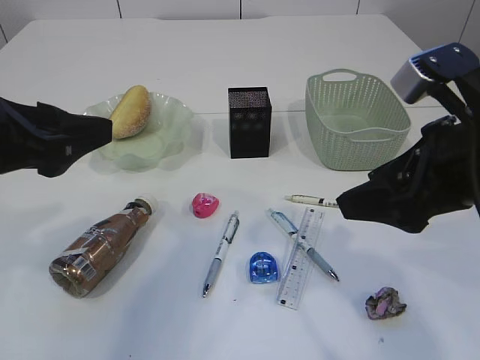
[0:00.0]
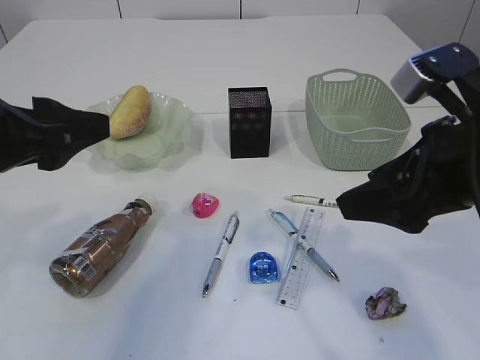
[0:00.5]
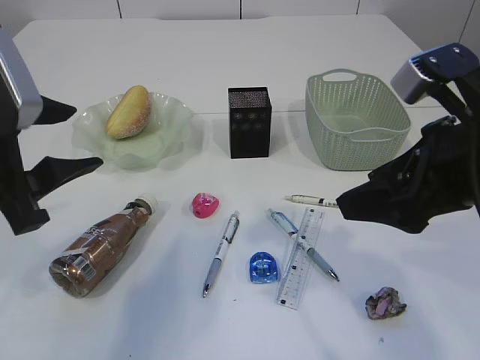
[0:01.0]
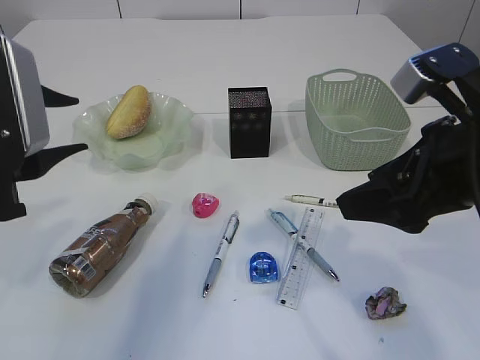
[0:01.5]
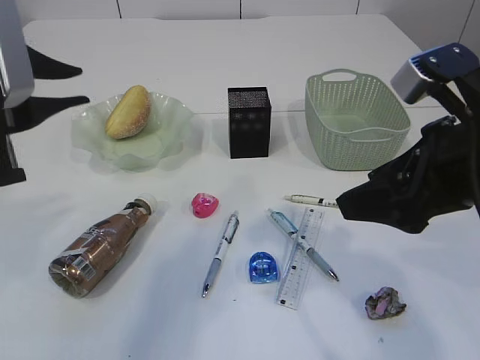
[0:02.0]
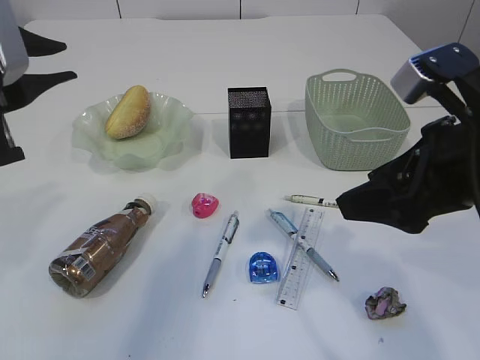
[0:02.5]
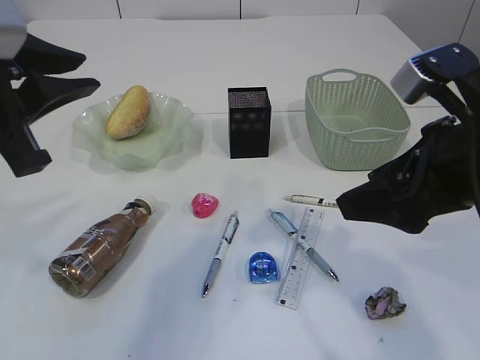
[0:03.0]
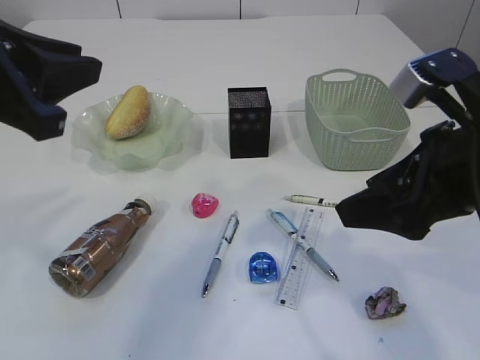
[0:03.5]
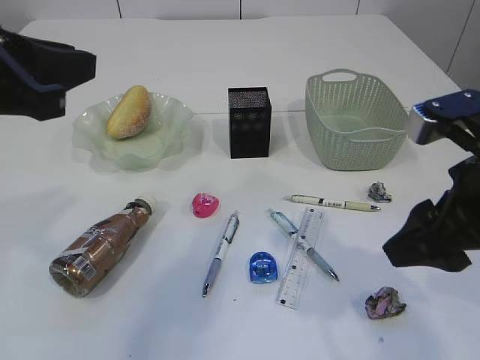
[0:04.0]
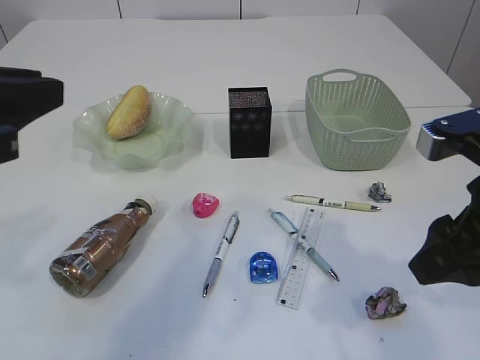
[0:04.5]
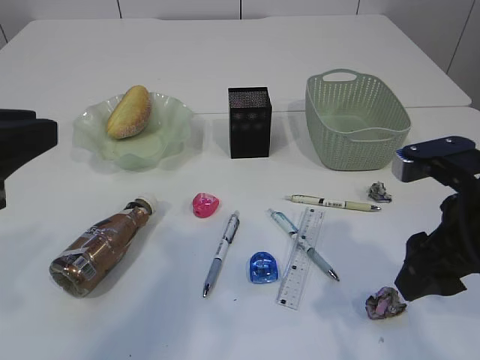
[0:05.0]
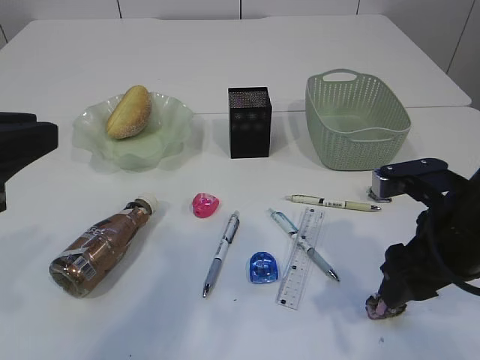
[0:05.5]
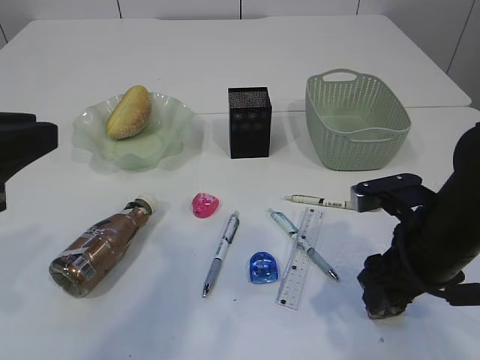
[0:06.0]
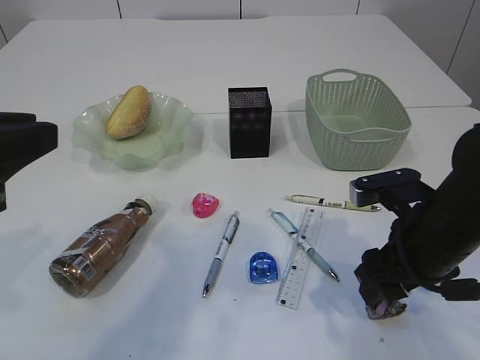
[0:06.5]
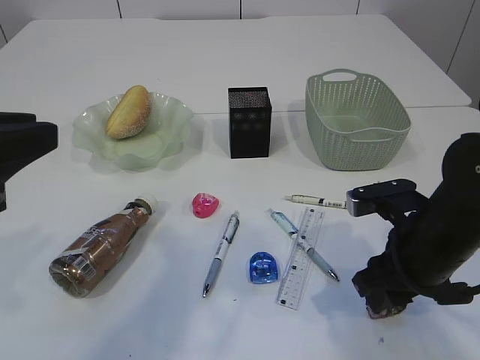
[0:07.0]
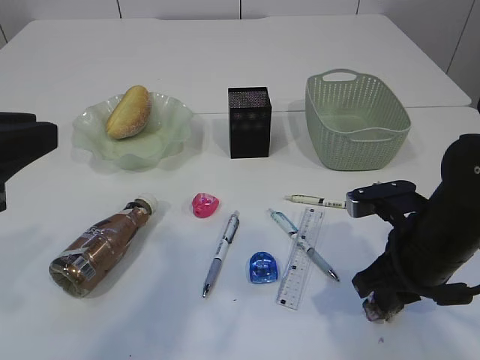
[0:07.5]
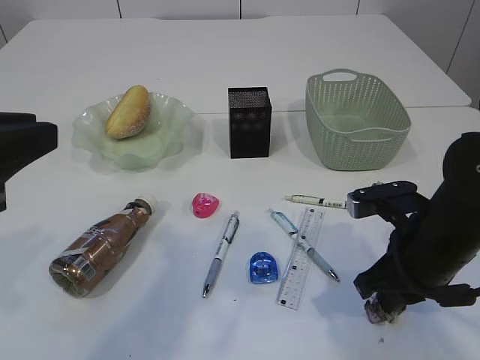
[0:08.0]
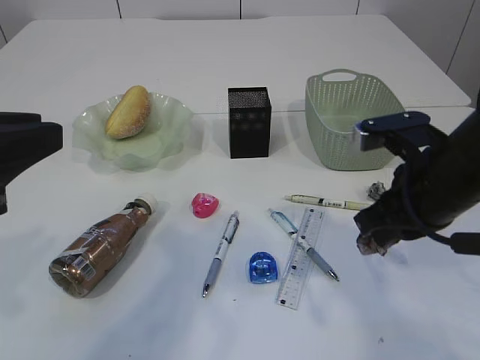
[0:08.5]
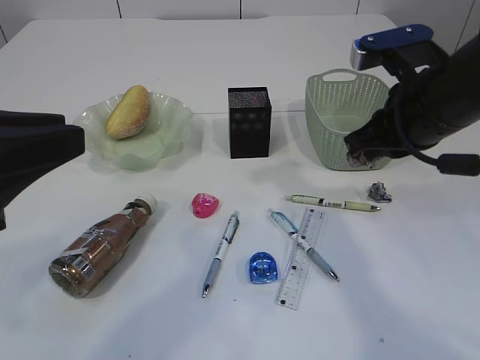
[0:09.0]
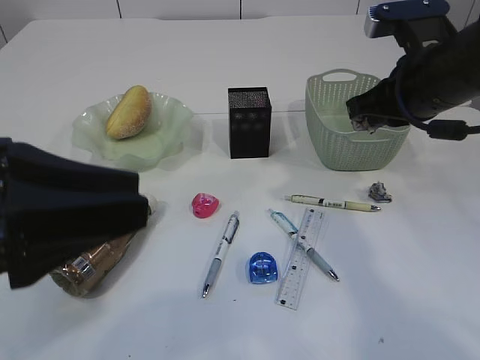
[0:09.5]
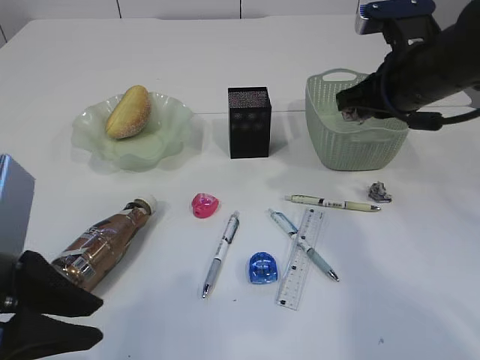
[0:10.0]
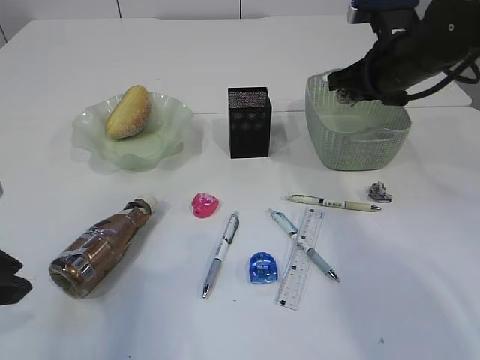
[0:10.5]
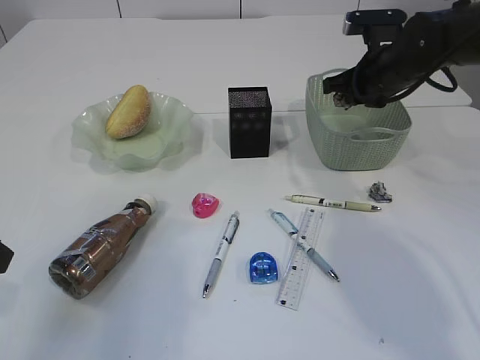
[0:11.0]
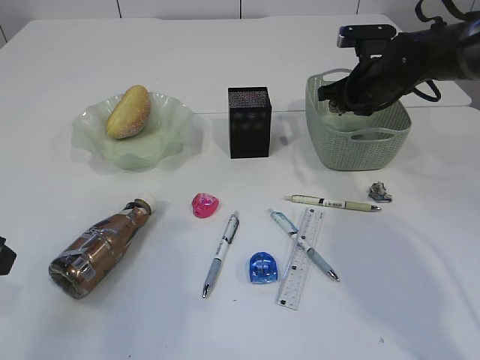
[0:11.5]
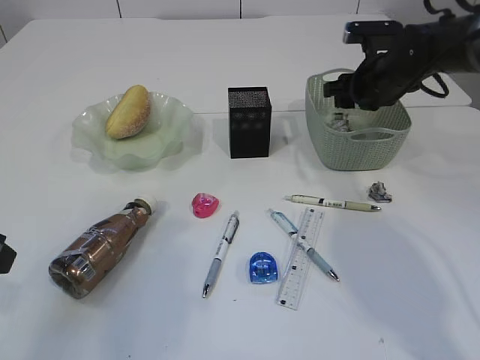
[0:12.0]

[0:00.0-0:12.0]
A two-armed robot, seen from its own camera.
Step, 0:00.0 to 0:08.5: Pick up the waste paper.
0:00.0 to 0:02.0: The left gripper closes.
0:04.0 to 0:06.0: The left gripper goes some 5 cm backward, while the right gripper travels downward by approximately 10 cm.
0:06.0 to 0:08.0: The right gripper closes its fingers.
0:08.0 to 0:10.0: The left gripper is displaced downward by roughly 5 cm, while the right gripper shifts approximately 15 cm upward and forward.
0:10.0 to 0:12.0: The left gripper is displaced to the left and forward by about 10 cm; the right gripper heads forward and downward, covering some 15 cm, and opens up.

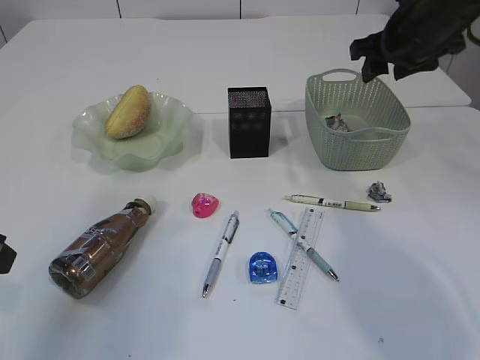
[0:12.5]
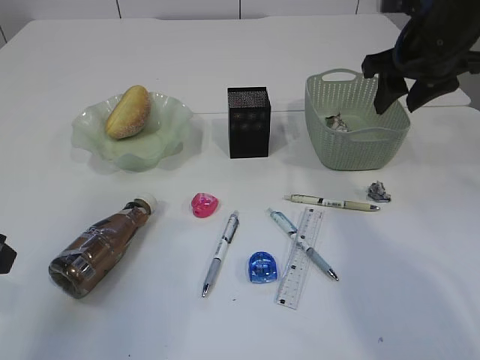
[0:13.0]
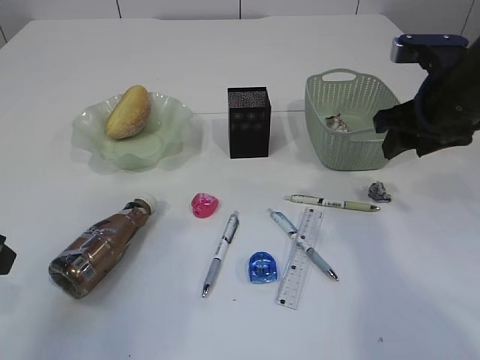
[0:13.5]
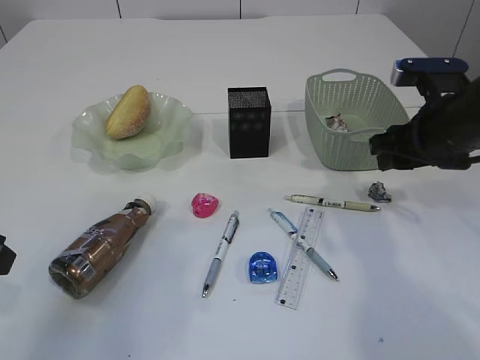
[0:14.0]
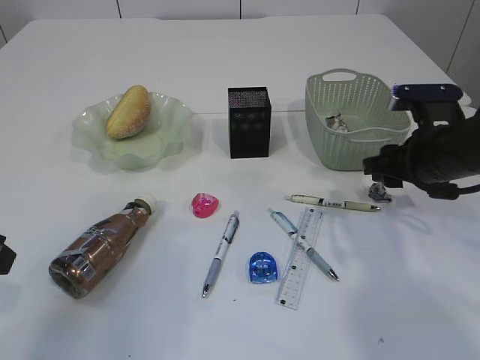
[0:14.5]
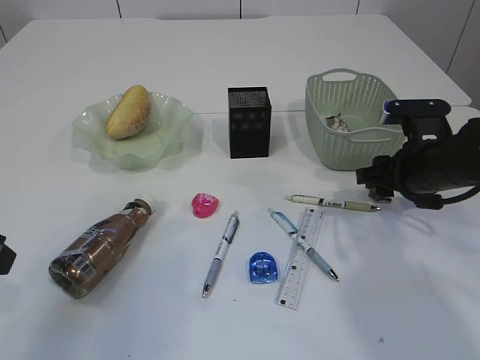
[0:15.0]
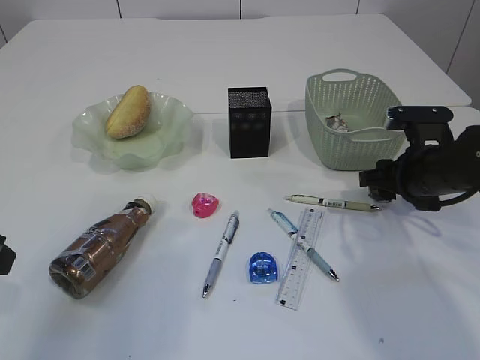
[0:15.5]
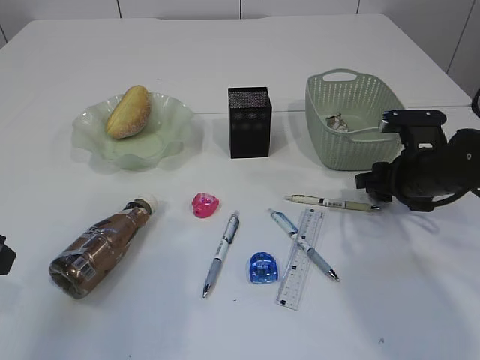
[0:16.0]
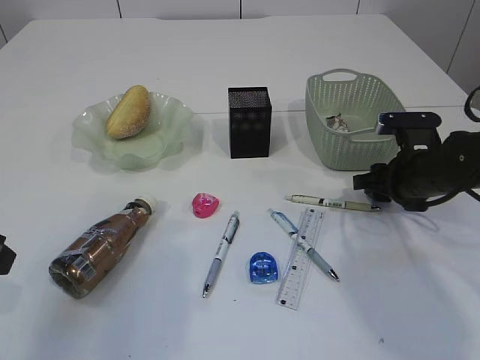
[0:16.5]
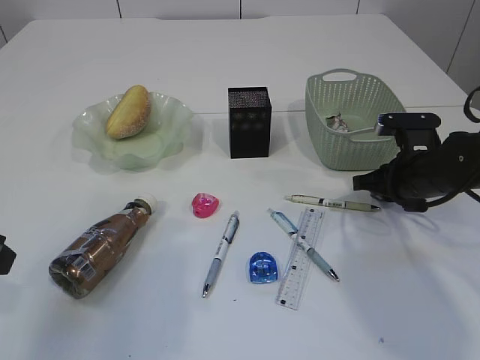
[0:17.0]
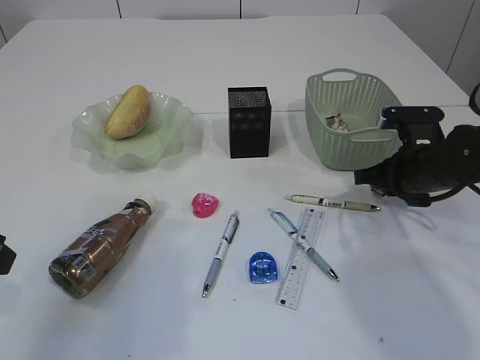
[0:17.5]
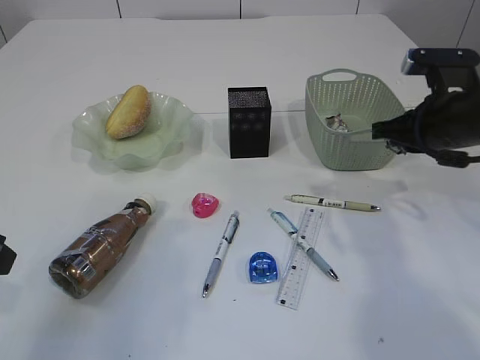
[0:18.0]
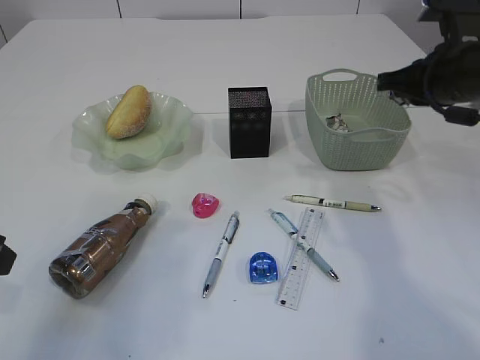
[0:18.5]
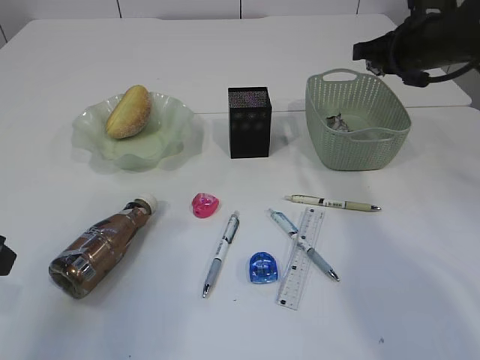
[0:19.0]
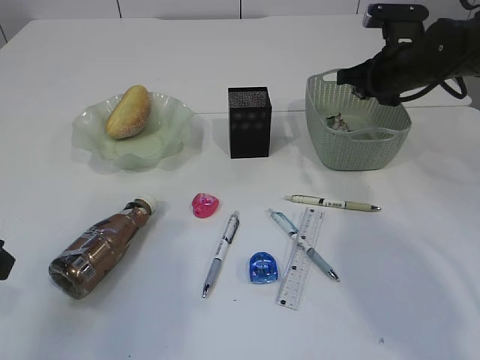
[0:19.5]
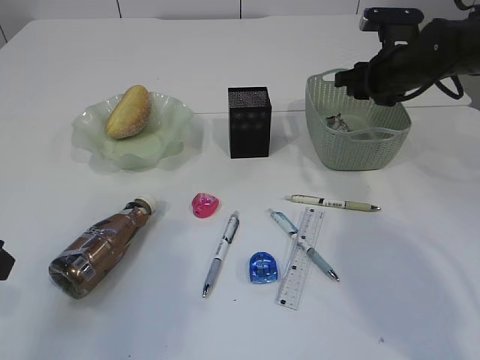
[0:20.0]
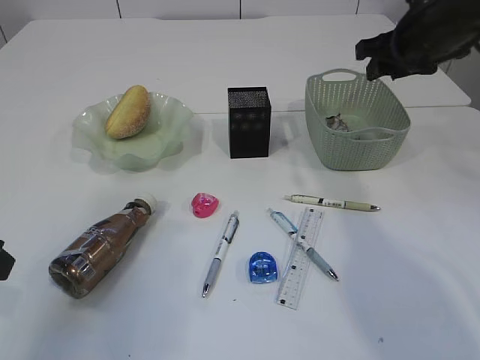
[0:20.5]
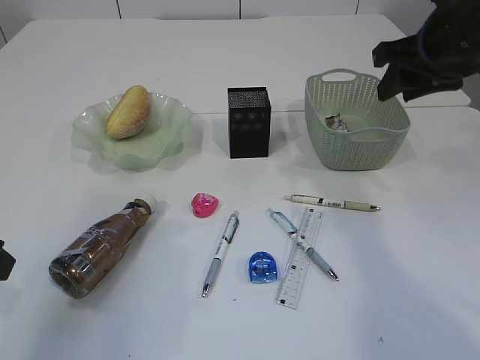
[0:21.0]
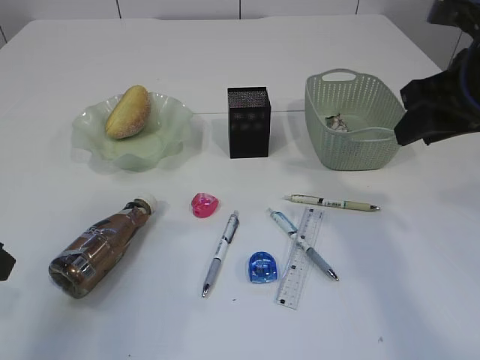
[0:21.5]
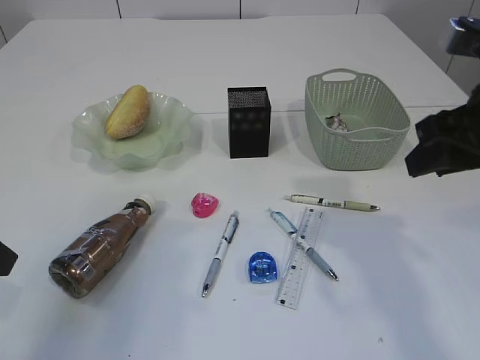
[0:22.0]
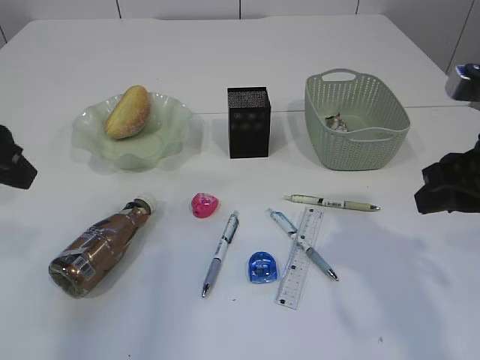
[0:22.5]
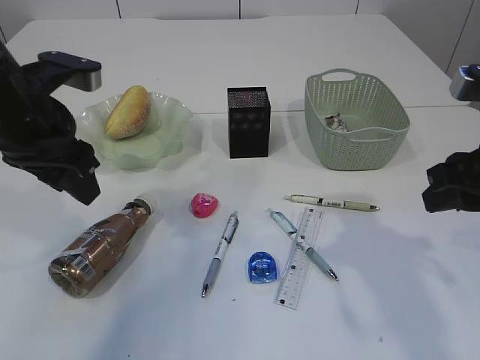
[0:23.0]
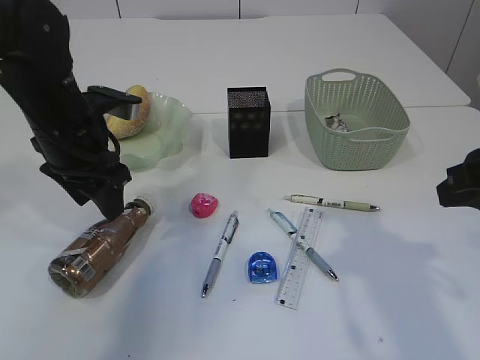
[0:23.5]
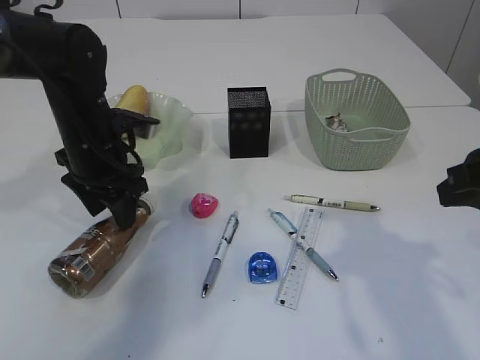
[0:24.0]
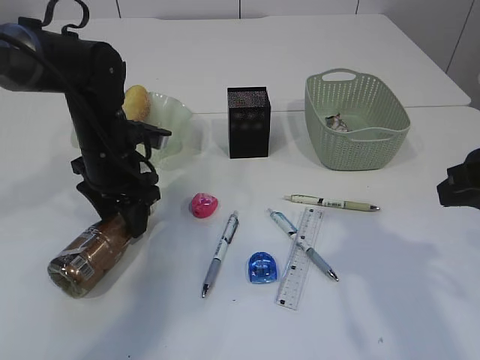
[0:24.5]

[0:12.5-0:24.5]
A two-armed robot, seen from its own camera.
Step, 0:12.5 to 0:18.0: Pick up the waste paper.
Step, 0:18.5 to 0:20.5: Place the waste paper in the basket.
0:12.5 to 0:14.5: The right gripper travels downward and backward by roughly 15 cm.
0:14.5 to 0:16.5: The right gripper moves downward, approximately 5 cm.
0:16.5 to 0:18.5: The right gripper shifts roughly 15 cm upward, and closes.
0:18.5 to 0:20.5: The right gripper travels forward by approximately 5 cm, and opens up.
0:20.5 to 0:22.5: The left gripper is displaced forward and upward by some 10 cm, while the right gripper travels backward by about 20 cm.
0:22.5 to 0:24.5: The left gripper goes some 20 cm downward, forward and to the right, and opens.

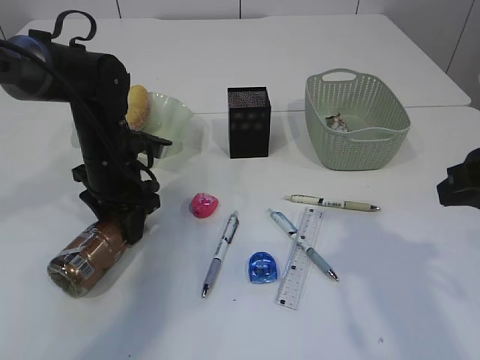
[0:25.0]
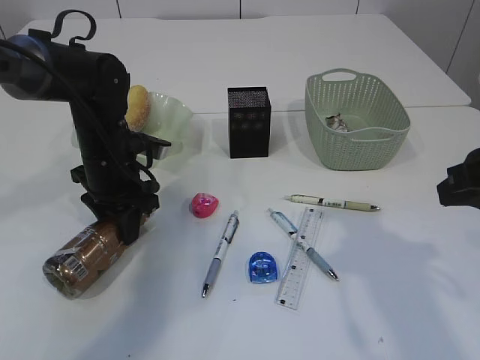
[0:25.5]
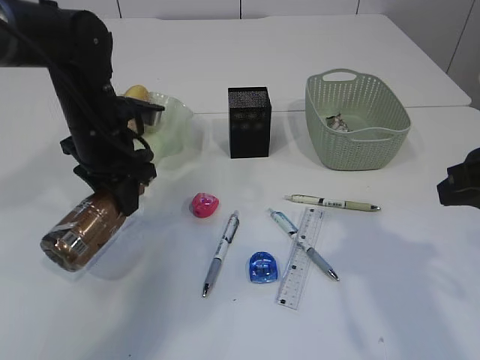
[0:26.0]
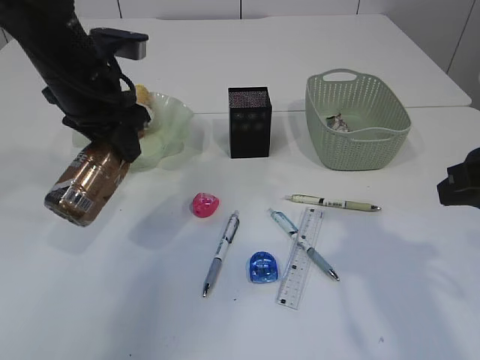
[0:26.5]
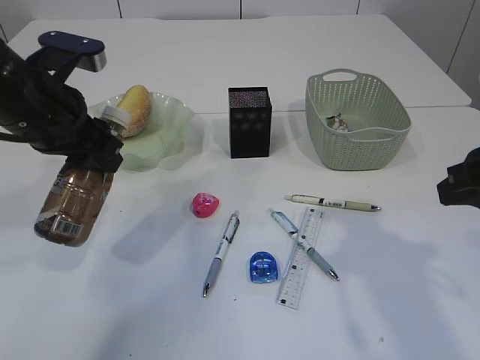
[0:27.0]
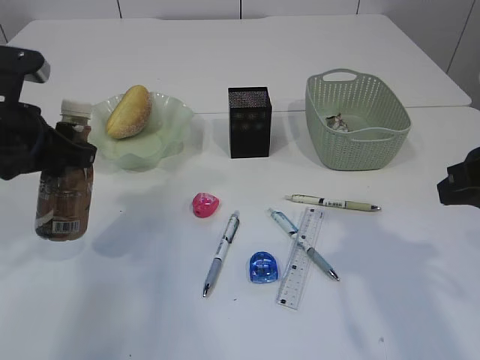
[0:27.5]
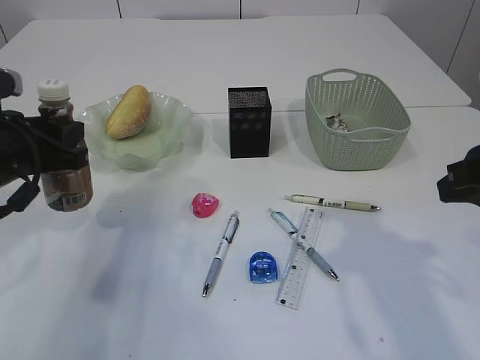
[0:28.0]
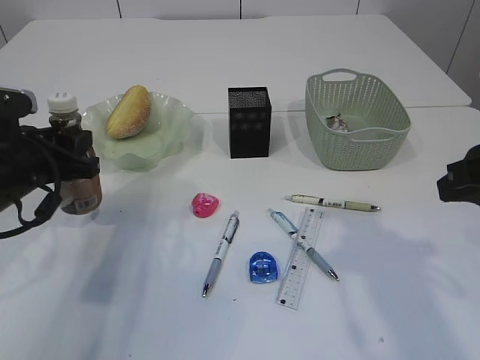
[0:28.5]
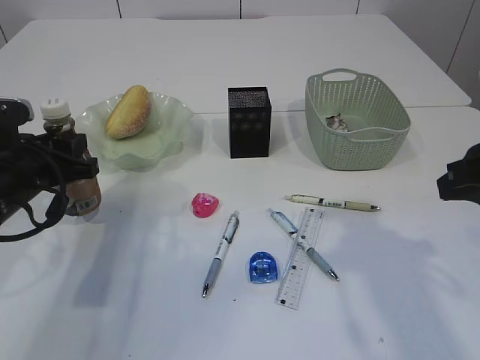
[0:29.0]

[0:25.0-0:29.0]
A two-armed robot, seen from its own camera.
0:25.0 to 0:27.0: The left gripper goes about 15 cm upward and backward.
0:27.0 to 0:29.0: The left gripper is displaced downward and to the left by some 10 cm.
